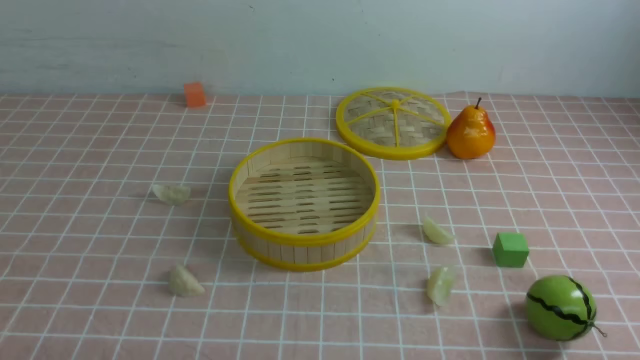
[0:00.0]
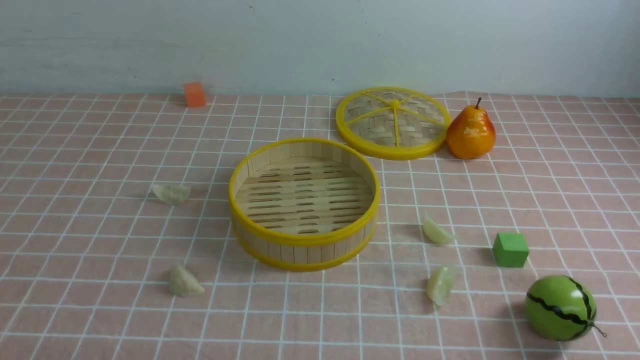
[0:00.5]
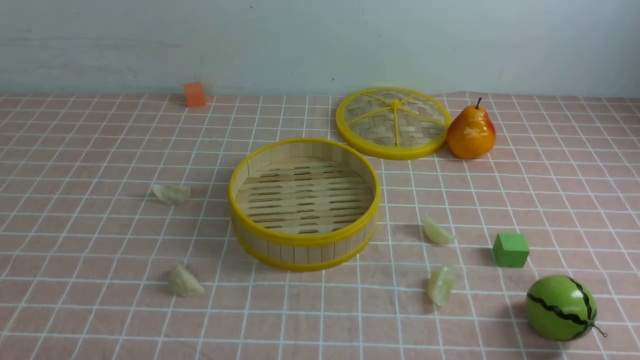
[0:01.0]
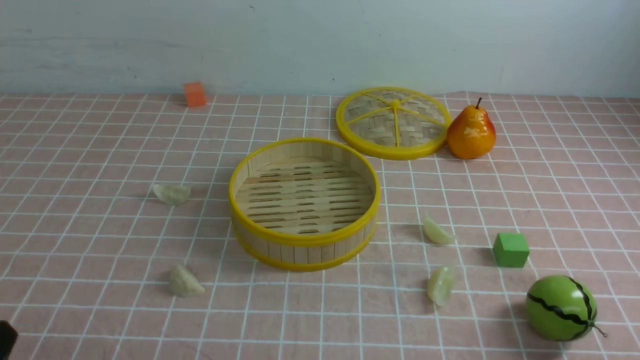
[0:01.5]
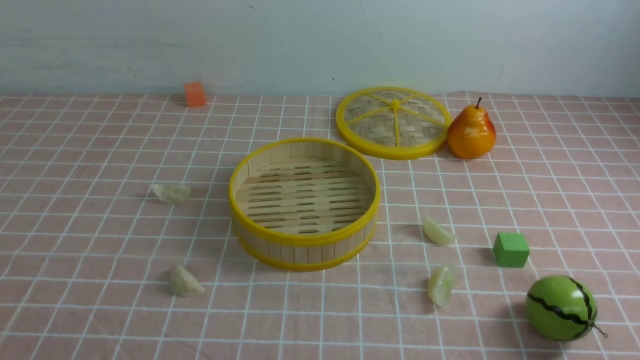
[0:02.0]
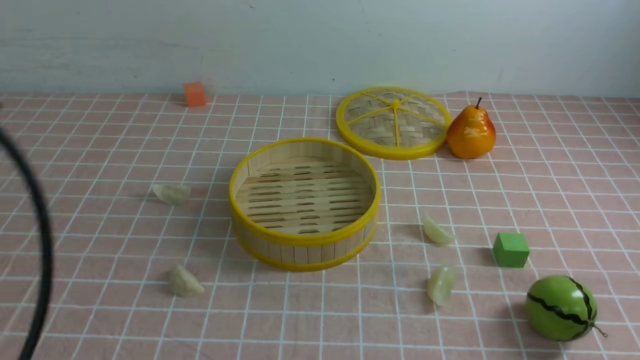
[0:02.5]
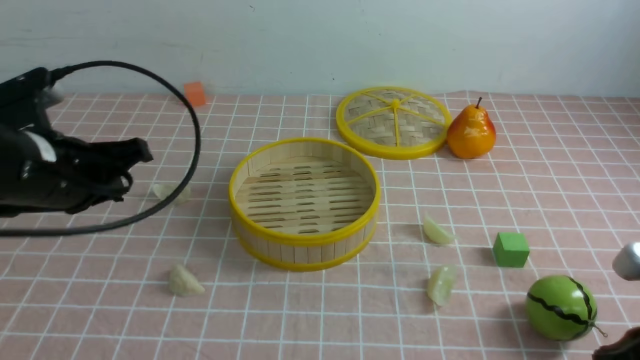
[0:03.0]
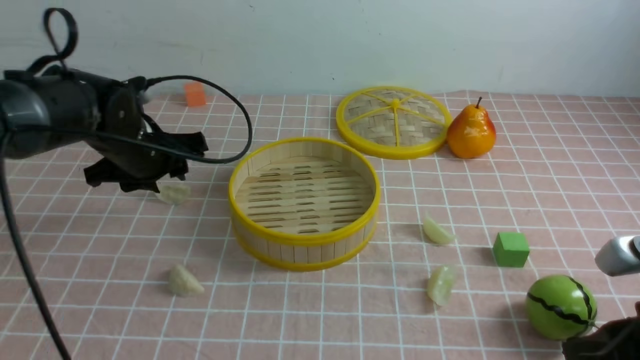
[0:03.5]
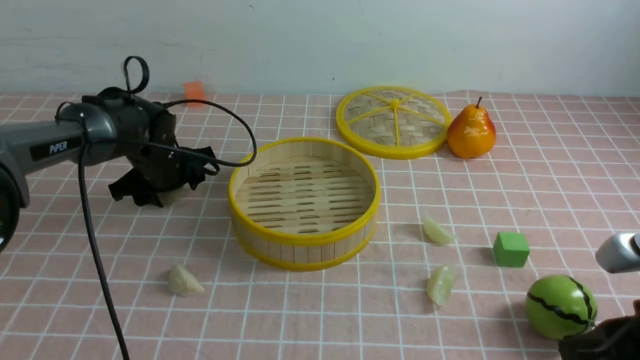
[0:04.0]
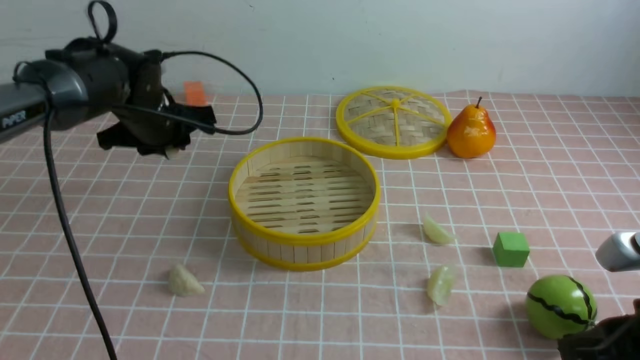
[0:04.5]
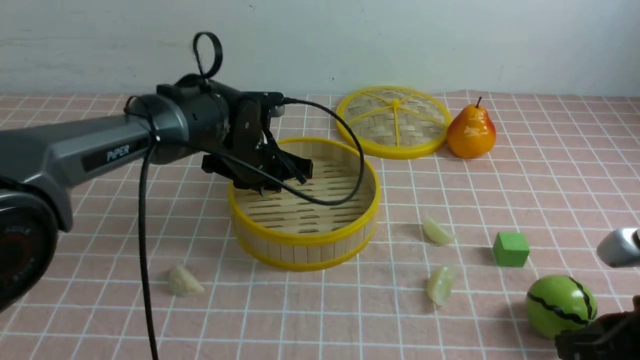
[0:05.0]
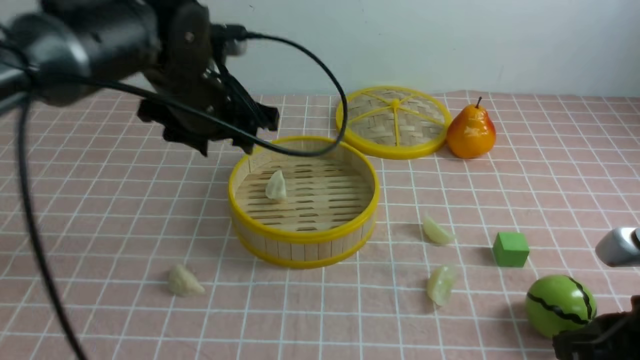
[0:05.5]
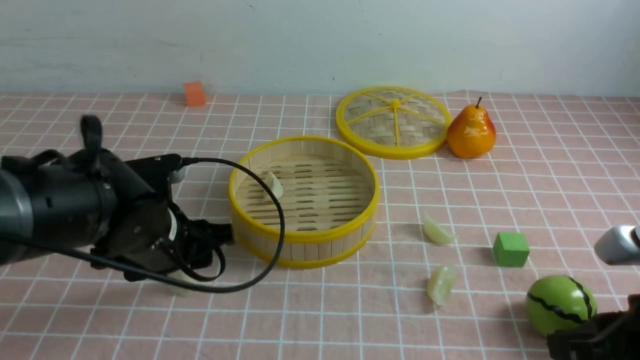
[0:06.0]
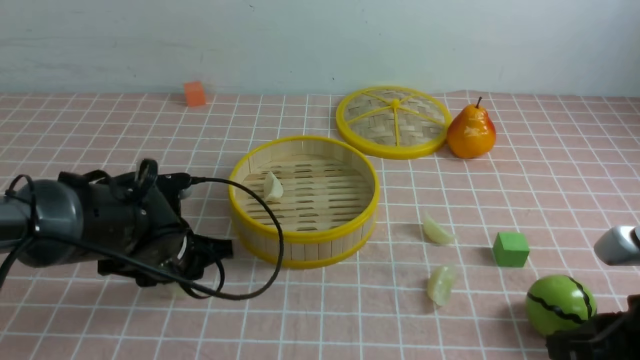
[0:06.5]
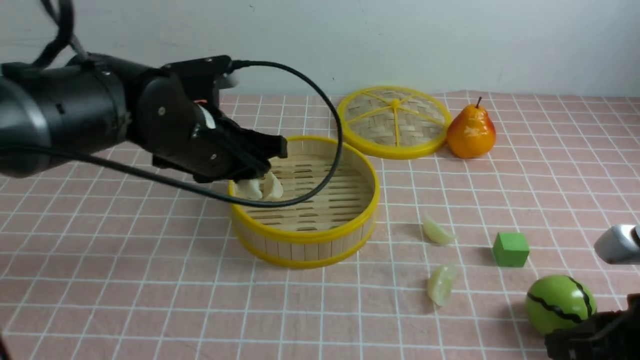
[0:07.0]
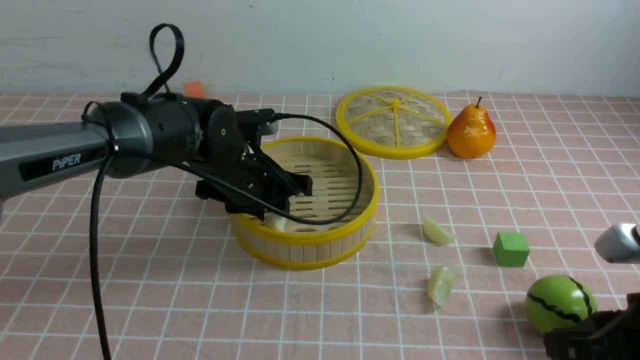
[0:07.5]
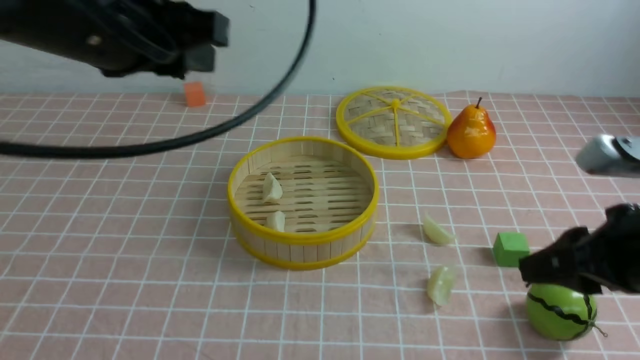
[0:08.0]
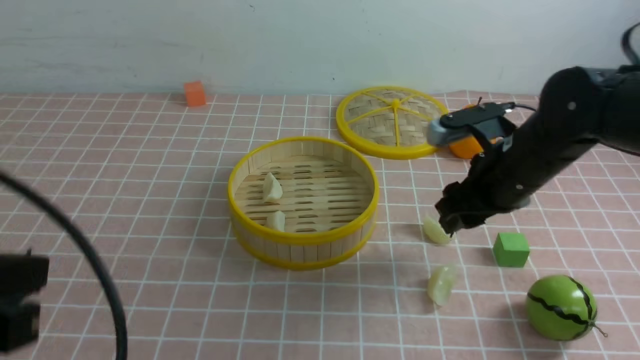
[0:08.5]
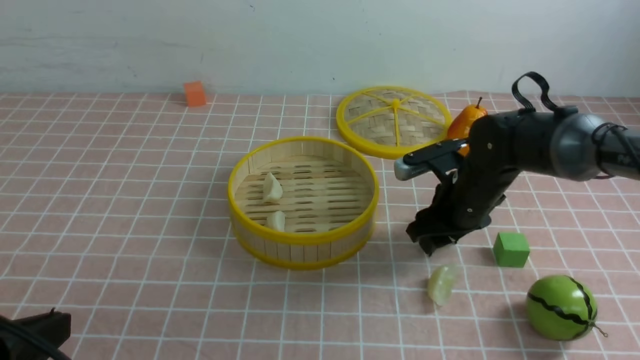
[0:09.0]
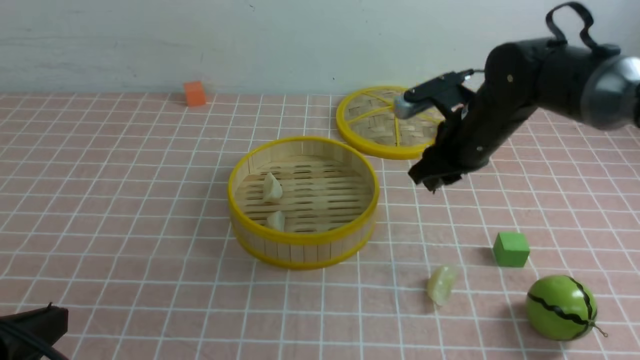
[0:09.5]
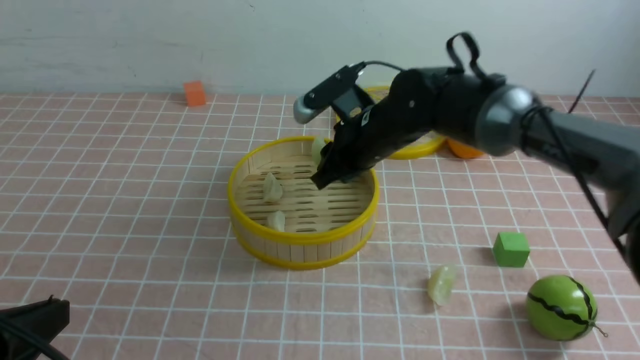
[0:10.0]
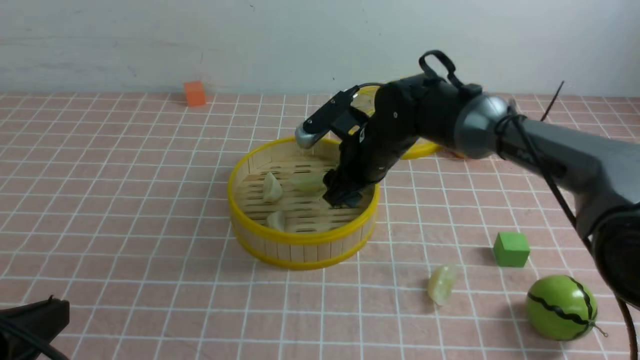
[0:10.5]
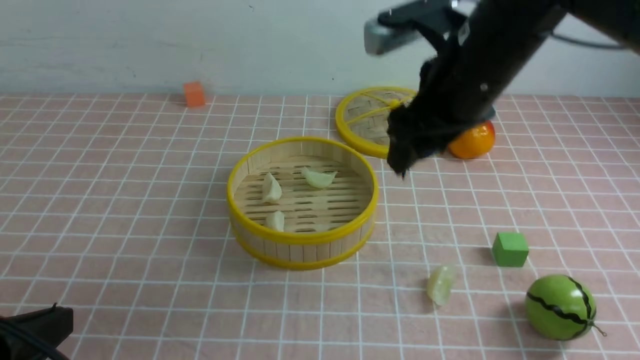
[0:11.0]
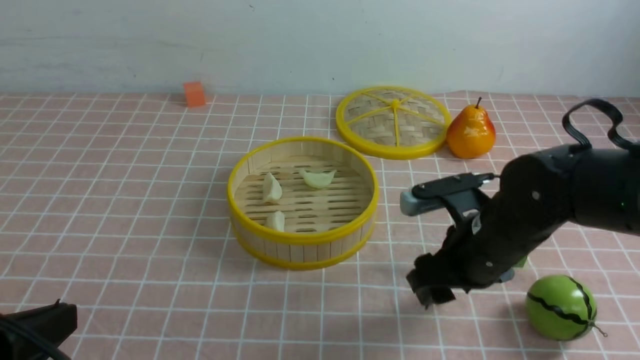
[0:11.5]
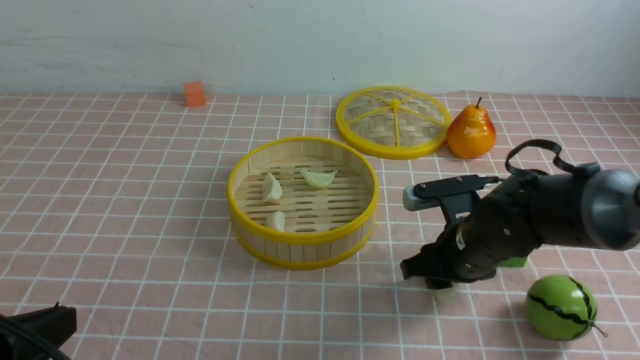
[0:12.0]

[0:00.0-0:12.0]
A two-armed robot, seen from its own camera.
Task of the whole recording: put the dumplings into the steamer on the table with the pink tablecloth.
Step, 0:00.0 to 0:04.0: use the left arm to grab a dumpling.
Step, 0:04.5 to 0:05.0: use the left arm to put the dumpling into the steamer.
Step, 0:05.5 to 0:06.5: use the left arm to grab a dumpling.
Step, 0:07.0 to 0:07.5: use the left arm to put the dumpling into the steamer.
Step, 0:08.0 to 0:09.0: use the right arm to grab a dumpling.
Step, 0:09.5 to 0:10.5: use the right arm to put the dumpling into the steamer.
0:02.0 to 0:04.0: The right gripper travels forward by approximately 10 cm. Meanwhile the left gripper heads forward, covering roughly 40 cm, and opens.
0:04.0 to 0:06.0: The left gripper moves backward, approximately 15 cm, and closes and opens again.
0:06.0 to 0:08.0: The left gripper moves upward, some 20 cm, and closes. Meanwhile the right gripper moves forward, approximately 5 cm.
0:08.0 to 0:10.0: The right gripper moves forward and to the left, approximately 30 cm, and opens, then closes again; the left gripper is displaced backward, downward and to the left by approximately 25 cm, and closes.
0:10.0 to 0:12.0: The right gripper travels backward, to the right and downward by roughly 15 cm.

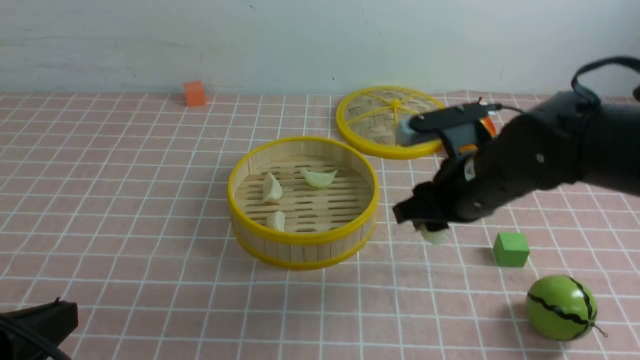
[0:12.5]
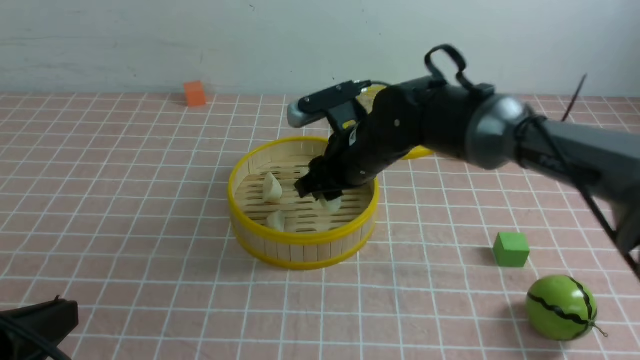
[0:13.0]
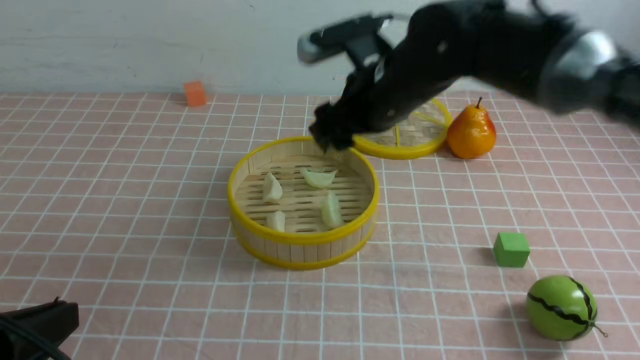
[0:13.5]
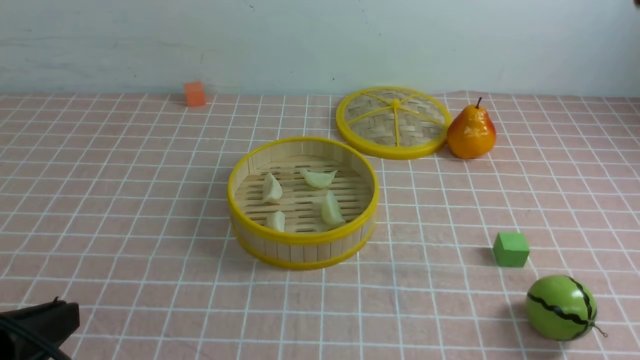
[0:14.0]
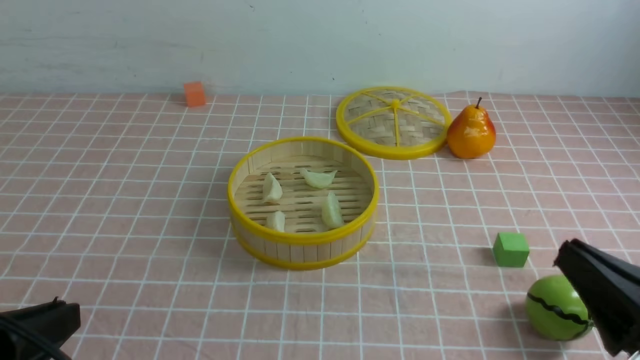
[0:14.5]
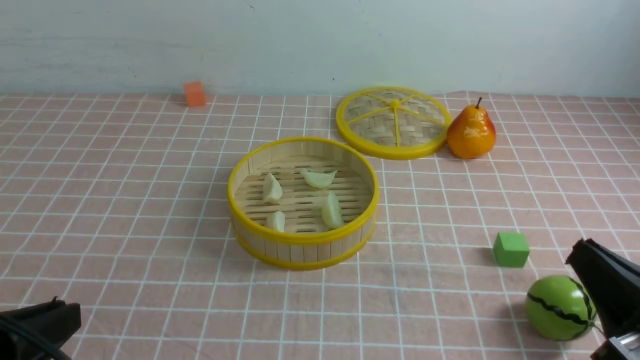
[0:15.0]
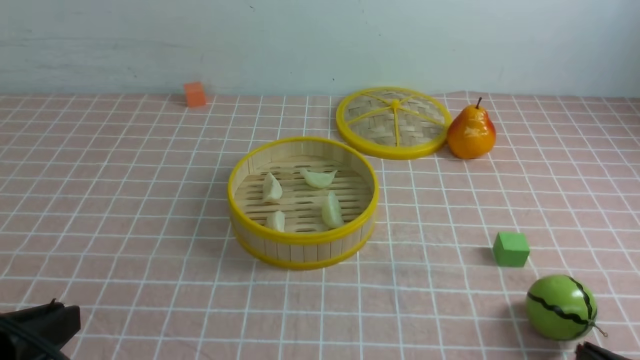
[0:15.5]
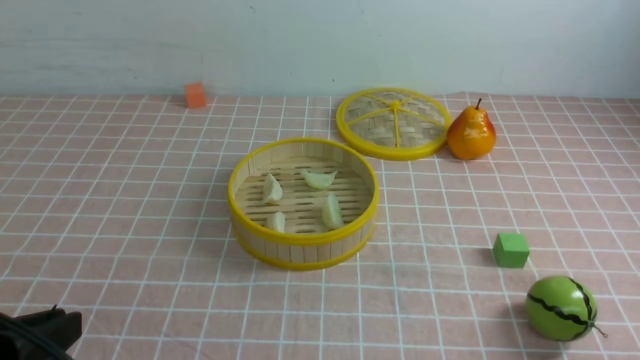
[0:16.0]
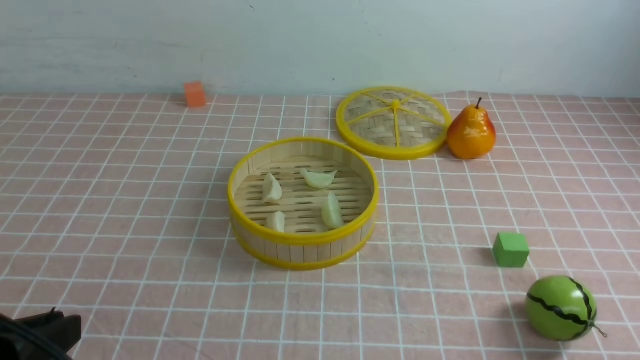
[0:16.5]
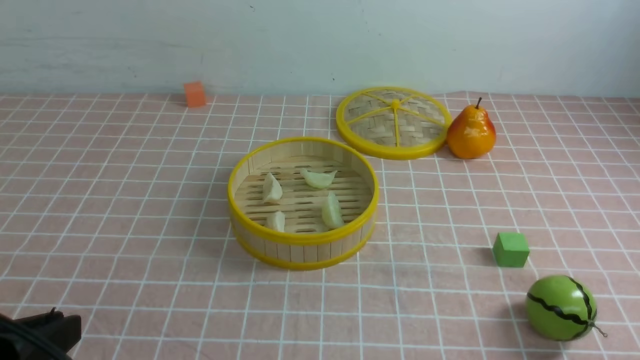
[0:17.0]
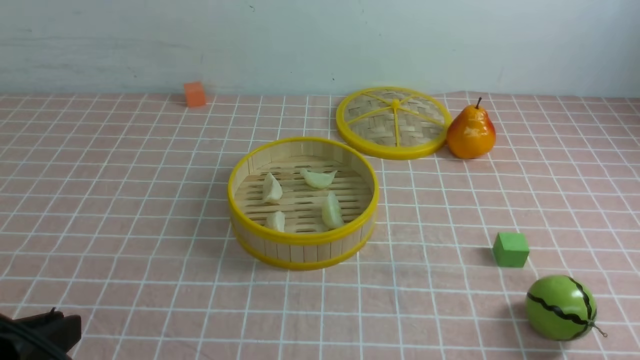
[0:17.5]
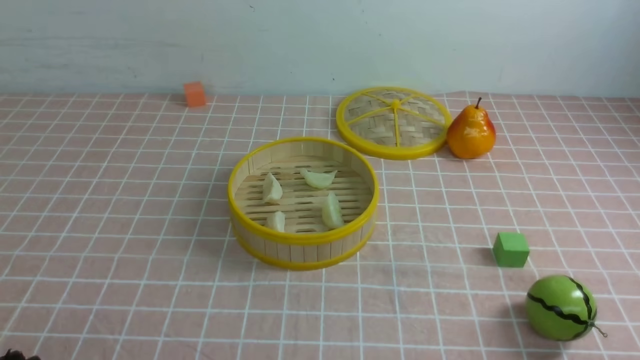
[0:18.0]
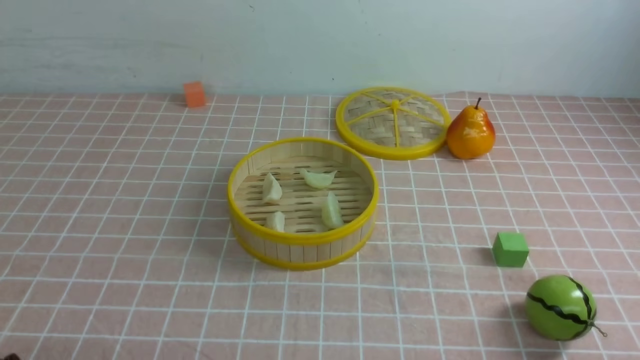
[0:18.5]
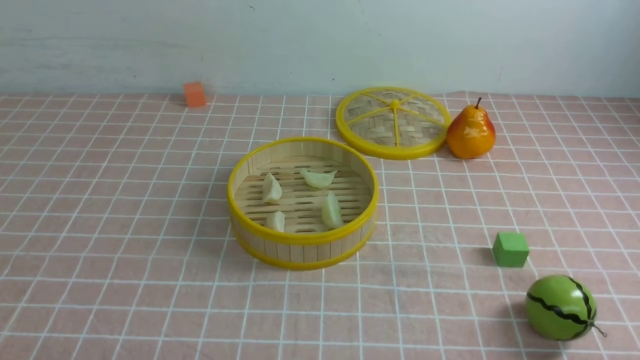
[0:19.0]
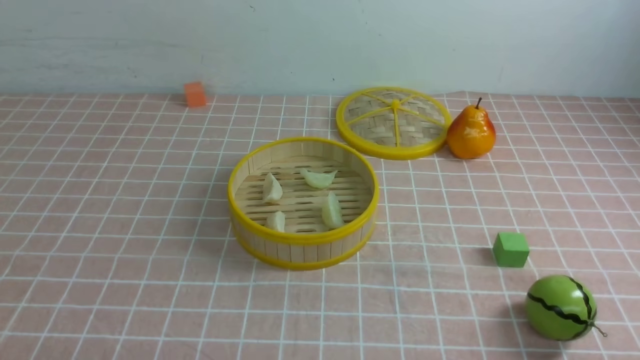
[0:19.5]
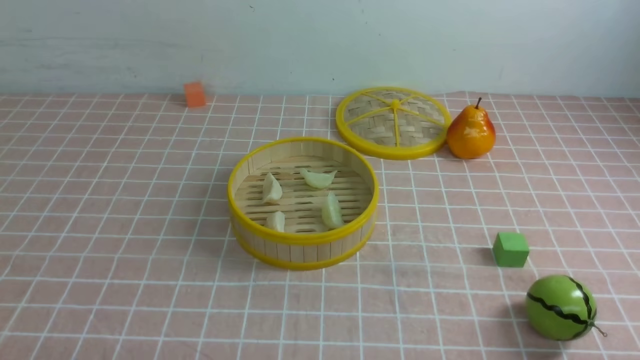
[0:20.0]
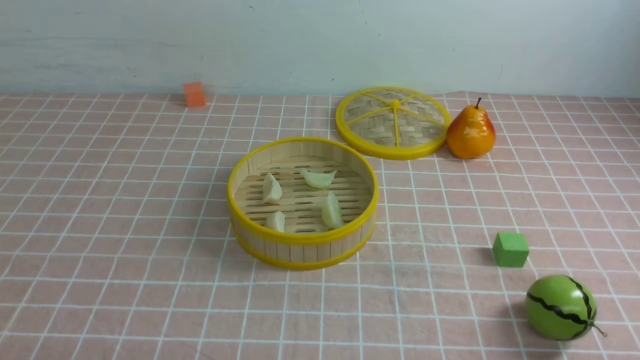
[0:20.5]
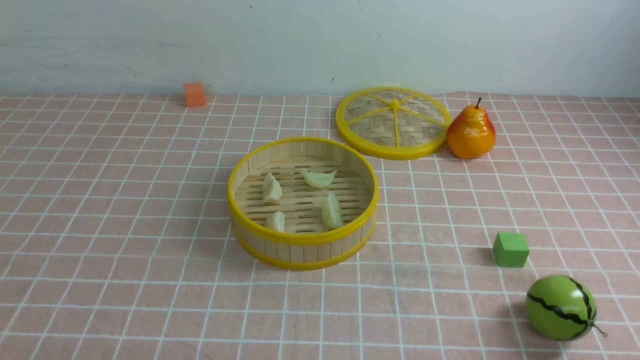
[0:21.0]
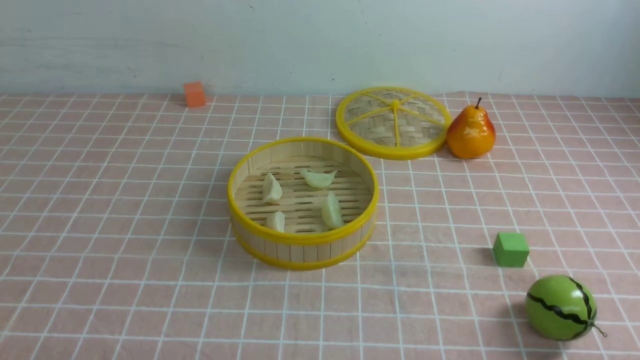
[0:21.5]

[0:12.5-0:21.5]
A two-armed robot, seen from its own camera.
Task of the whole recording: put the dumplings into the steamer on the table with the pink tablecloth.
Step, 0:12.5 to 0:13.0: use the right arm to put the dumpling into the steamer.
0:12.5 to 0:14.5: The right gripper moves backward and to the right, about 25 cm, and closes its fingers.
0:14.5 to 0:17.0: The right gripper heads downward, to the right and backward, covering some 15 cm.
0:17.0 to 0:19.5: The left gripper heads downward, covering about 10 cm.
0:19.5 to 0:21.5: The two grippers keep their place.
